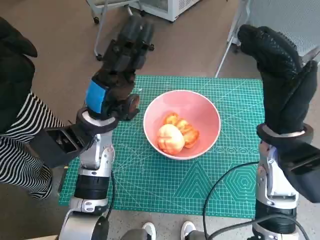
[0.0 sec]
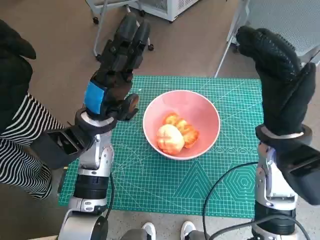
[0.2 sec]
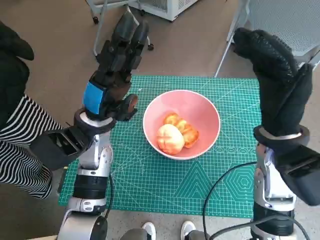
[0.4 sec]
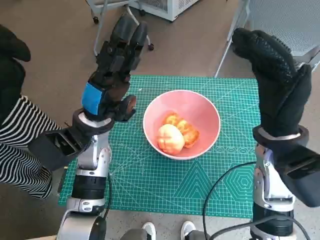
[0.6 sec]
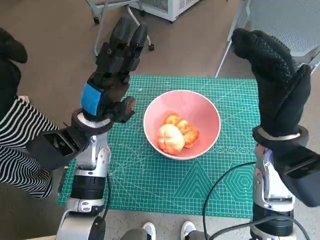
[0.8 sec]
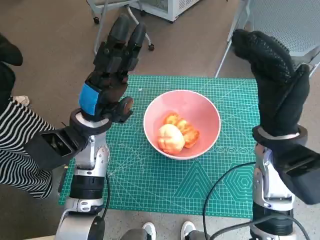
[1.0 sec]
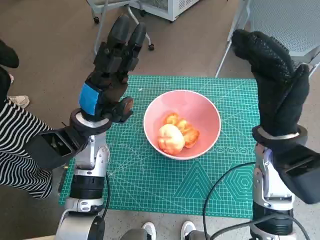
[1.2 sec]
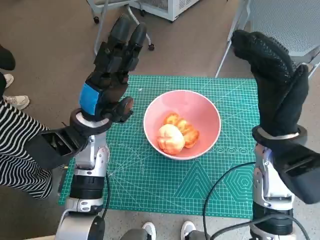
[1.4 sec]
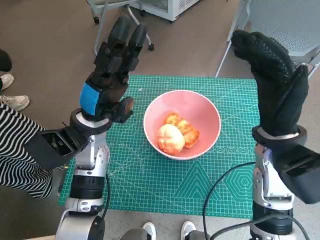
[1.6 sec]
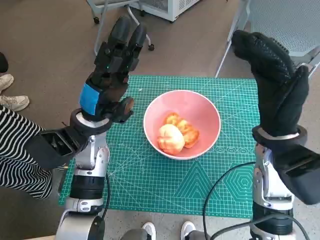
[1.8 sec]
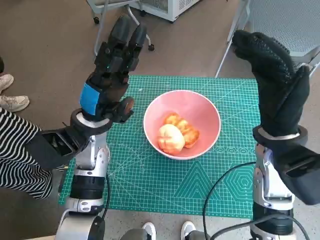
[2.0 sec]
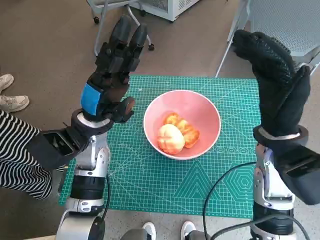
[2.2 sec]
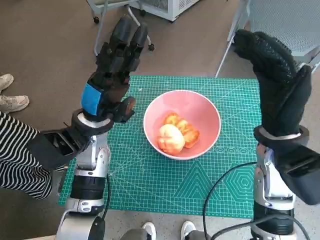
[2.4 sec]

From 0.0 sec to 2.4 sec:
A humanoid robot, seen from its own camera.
Task of the whole recording: Push the bowl into the center of the table and put the bread into the bowl.
From 0.0 sec to 2.4 sec: Both hands stay put.

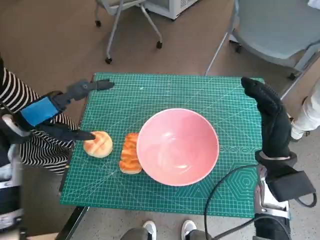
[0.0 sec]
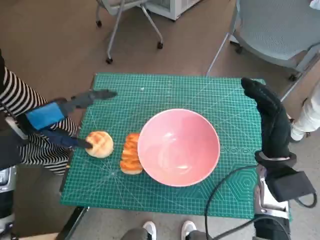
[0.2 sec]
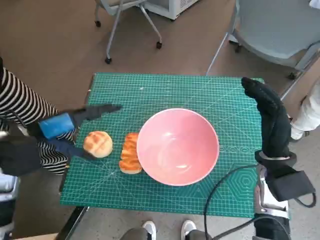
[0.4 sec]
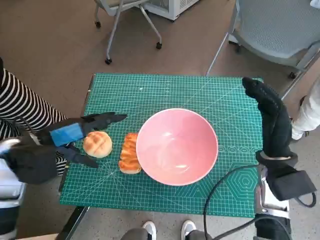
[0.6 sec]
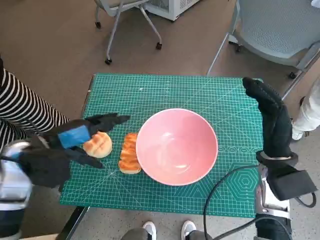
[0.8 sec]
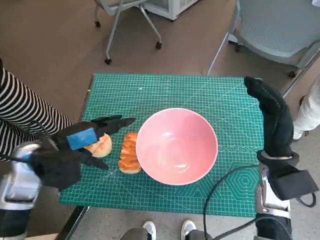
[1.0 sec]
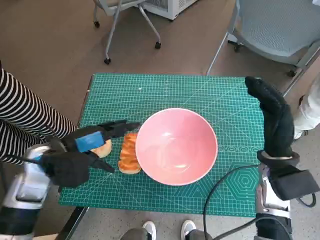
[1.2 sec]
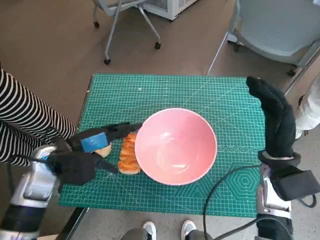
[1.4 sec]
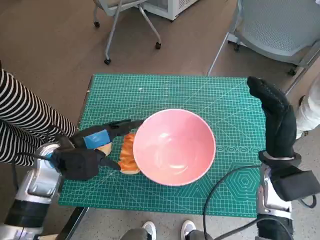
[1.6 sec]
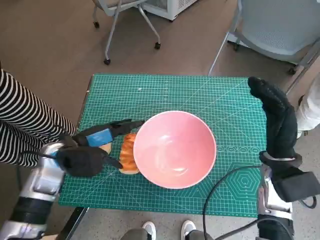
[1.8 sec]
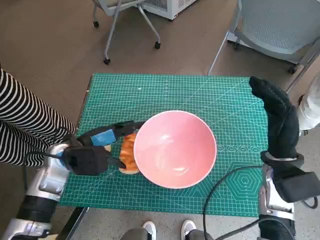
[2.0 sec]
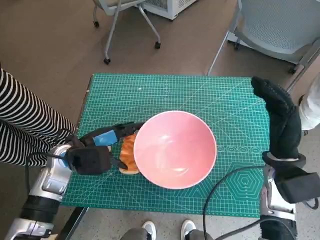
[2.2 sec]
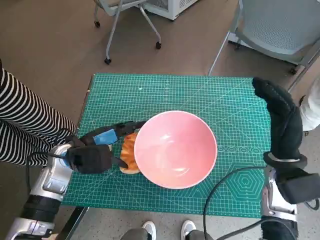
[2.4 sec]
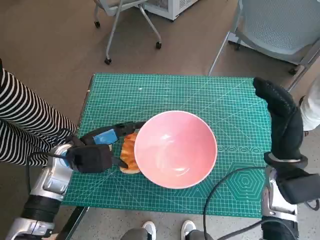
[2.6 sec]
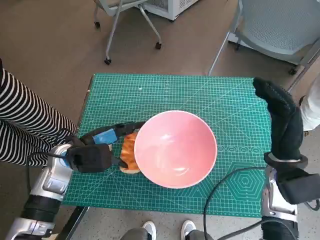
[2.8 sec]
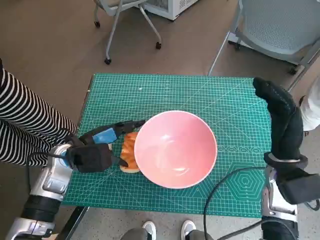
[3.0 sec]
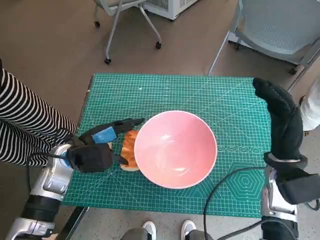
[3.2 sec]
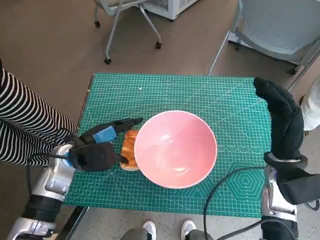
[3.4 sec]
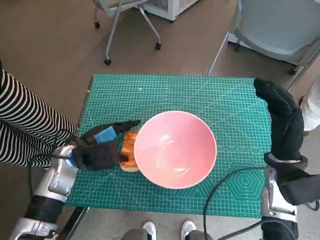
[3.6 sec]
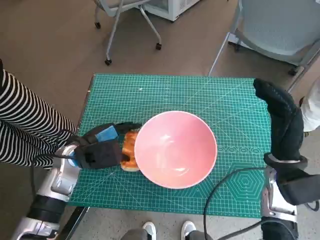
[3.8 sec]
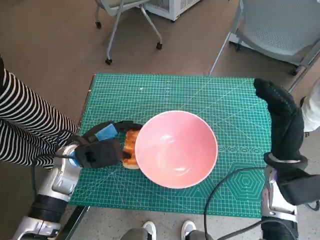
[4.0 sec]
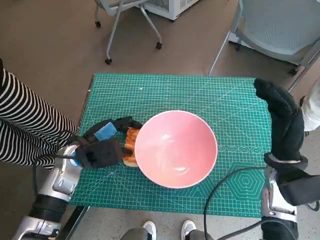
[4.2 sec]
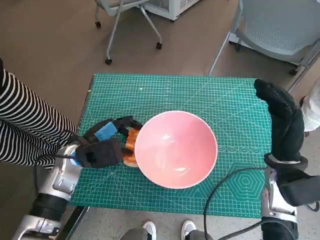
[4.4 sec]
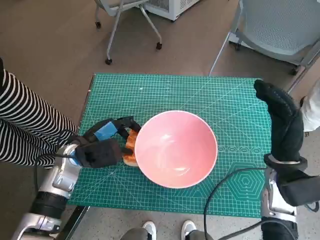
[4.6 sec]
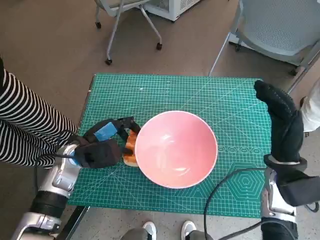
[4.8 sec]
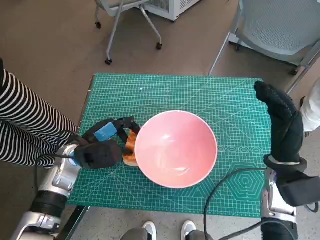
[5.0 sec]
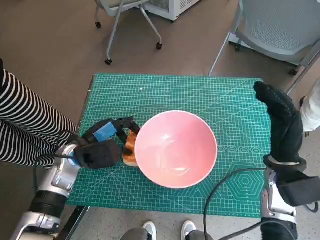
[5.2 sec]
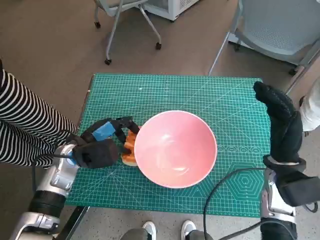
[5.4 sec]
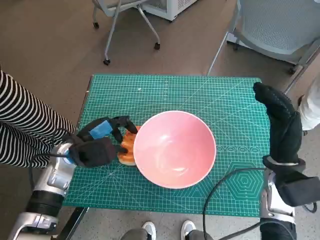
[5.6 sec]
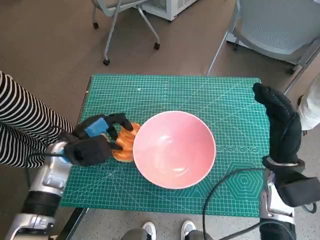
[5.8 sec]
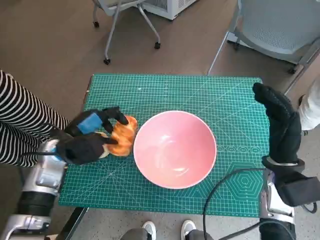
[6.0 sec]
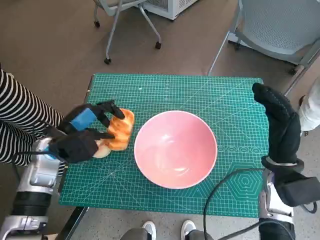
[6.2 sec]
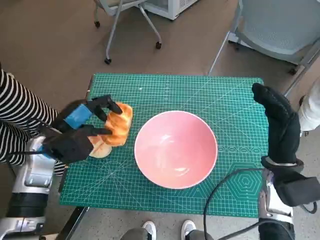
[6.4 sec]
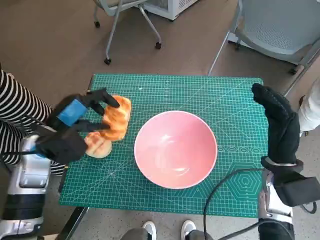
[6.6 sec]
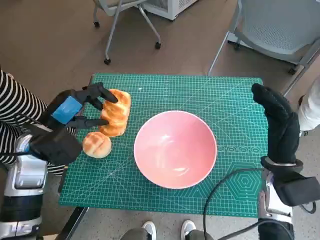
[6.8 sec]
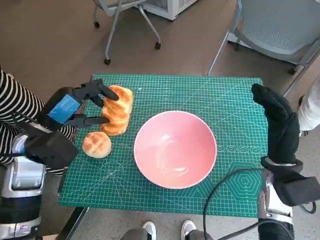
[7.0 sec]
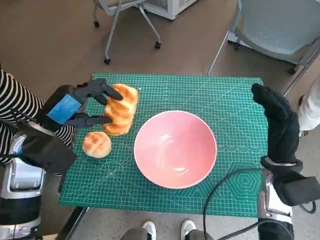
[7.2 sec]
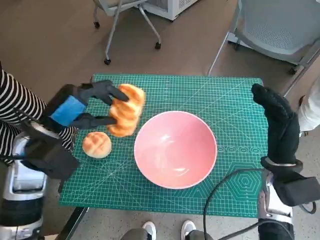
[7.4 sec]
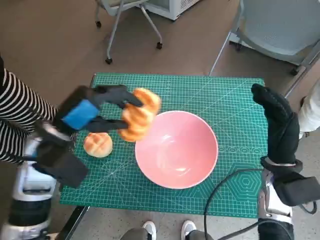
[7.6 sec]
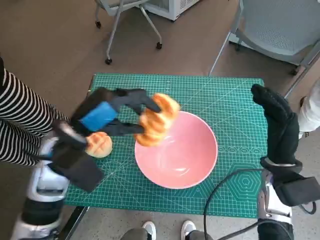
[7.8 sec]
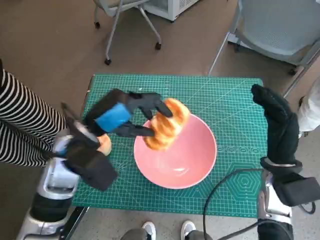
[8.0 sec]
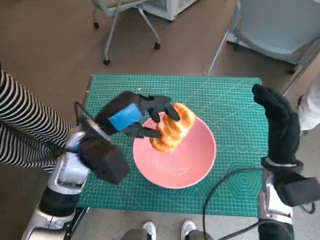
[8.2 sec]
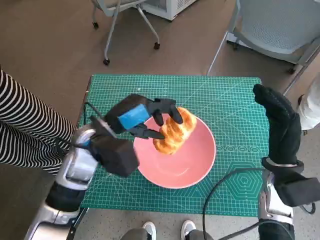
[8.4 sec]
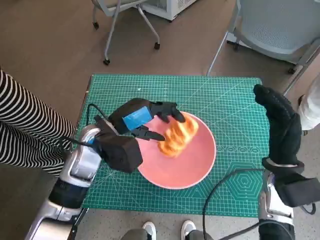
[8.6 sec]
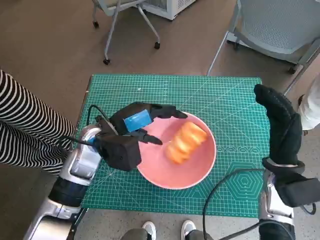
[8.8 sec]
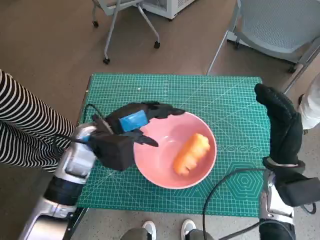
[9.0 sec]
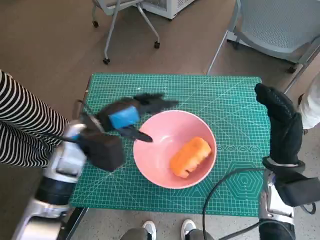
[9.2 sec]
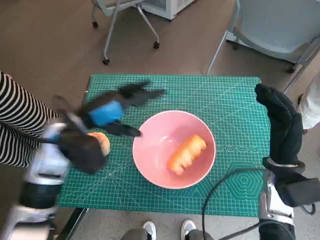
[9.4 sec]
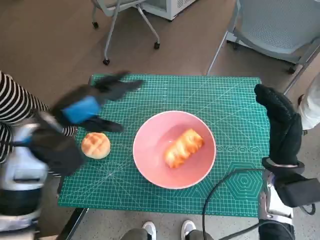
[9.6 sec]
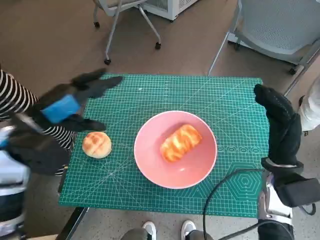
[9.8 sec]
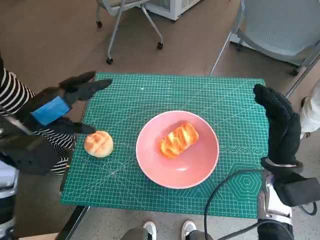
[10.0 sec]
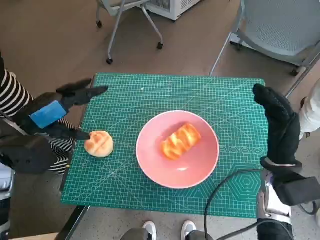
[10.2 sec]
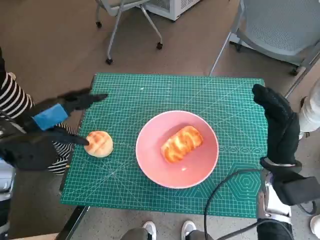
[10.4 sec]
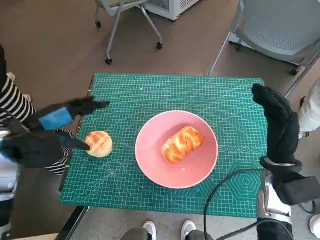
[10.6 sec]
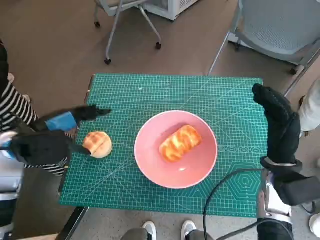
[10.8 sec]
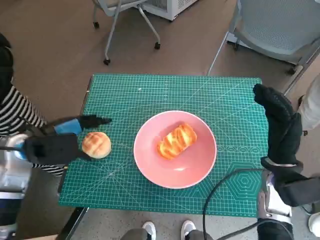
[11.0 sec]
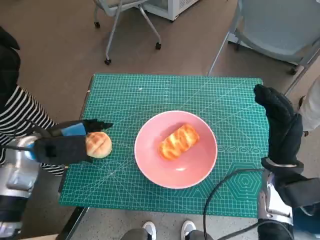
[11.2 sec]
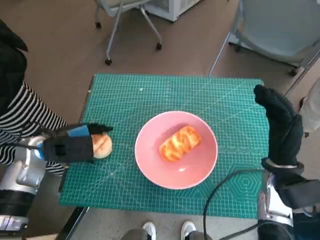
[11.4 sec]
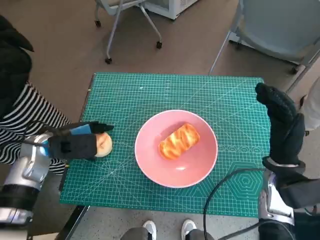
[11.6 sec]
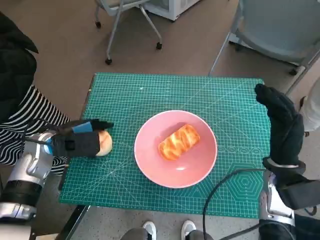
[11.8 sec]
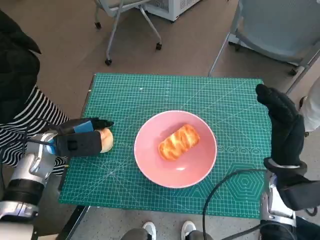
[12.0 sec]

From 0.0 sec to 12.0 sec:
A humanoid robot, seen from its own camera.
Task of the whole recording: Push the bowl into the center of the table and put the bread into the bowl.
Step, from 0.0 sec to 5.2 sec: Grasp the long bread with left hand.
Step, from 5.4 sec to 9.0 sec: Place the long bread in pink bowl with left hand.
From 0.0 sec to 1.6 sec: The left hand heads downward and to the right, covering approximately 10 cm.
From 1.6 sec to 4.4 sec: The hands make only small movements.
From 4.4 sec to 6.0 sec: There are only small adjustments of the hands.
From 6.0 sec to 7.6 sec: The left hand shifts approximately 10 cm upward.
From 7.6 sec to 9.0 sec: The left hand is displaced to the right by some 5 cm.
From 9.0 sec to 10.4 sec: The left hand goes some 15 cm to the left and upward.
From 10.4 sec to 12.0 sec: The left hand goes roughly 10 cm downward.

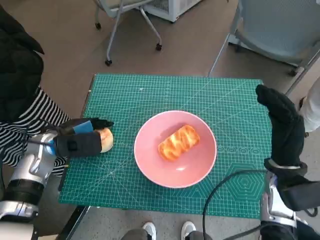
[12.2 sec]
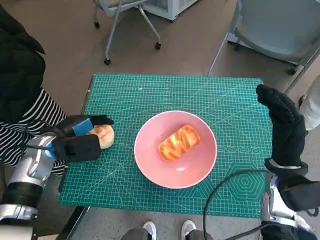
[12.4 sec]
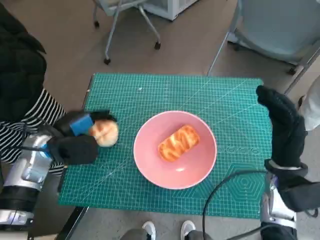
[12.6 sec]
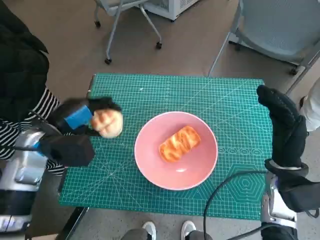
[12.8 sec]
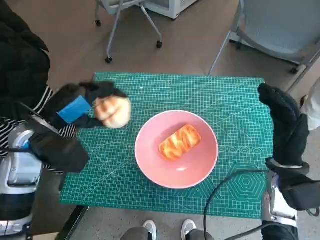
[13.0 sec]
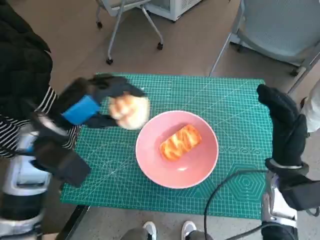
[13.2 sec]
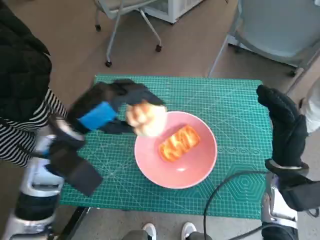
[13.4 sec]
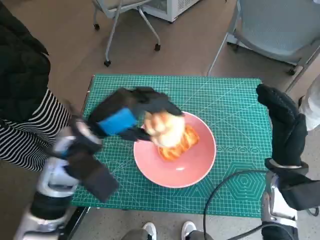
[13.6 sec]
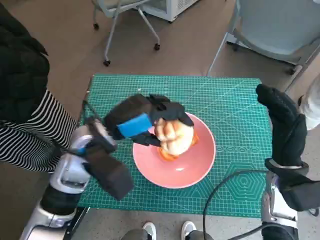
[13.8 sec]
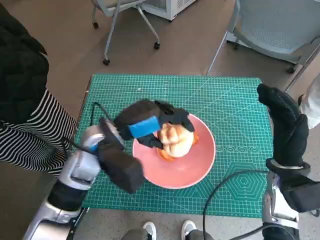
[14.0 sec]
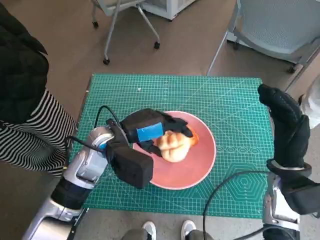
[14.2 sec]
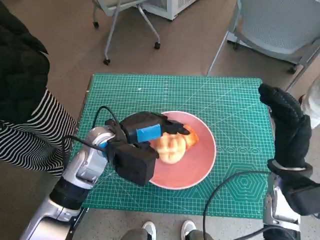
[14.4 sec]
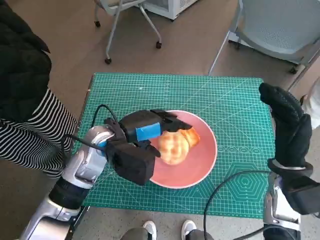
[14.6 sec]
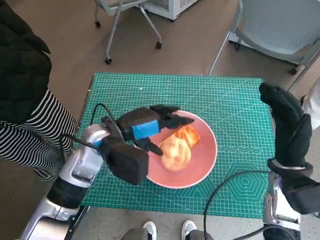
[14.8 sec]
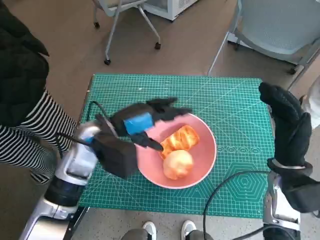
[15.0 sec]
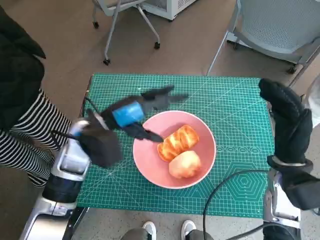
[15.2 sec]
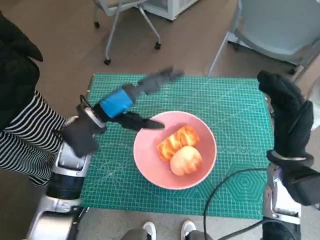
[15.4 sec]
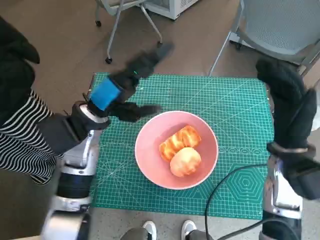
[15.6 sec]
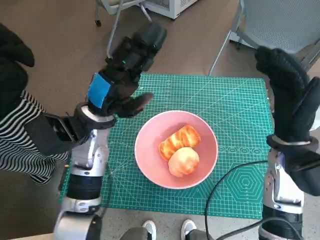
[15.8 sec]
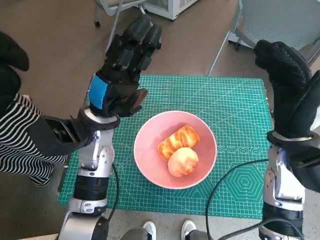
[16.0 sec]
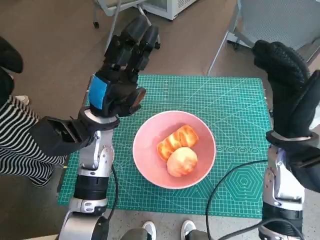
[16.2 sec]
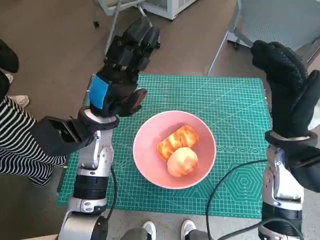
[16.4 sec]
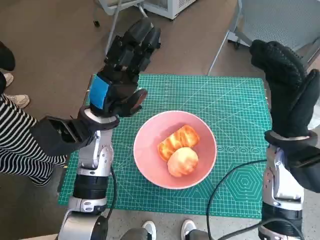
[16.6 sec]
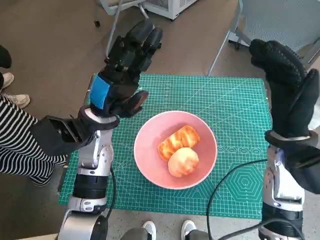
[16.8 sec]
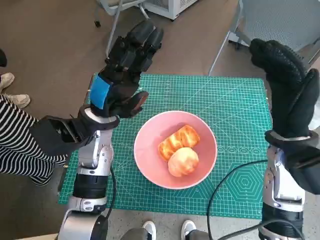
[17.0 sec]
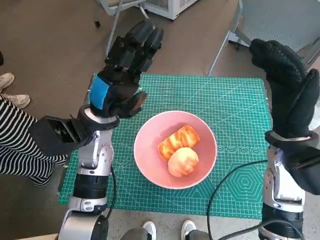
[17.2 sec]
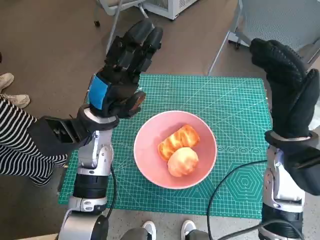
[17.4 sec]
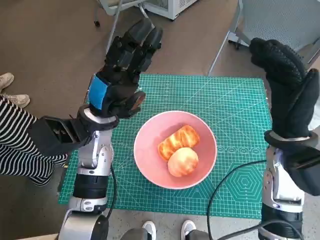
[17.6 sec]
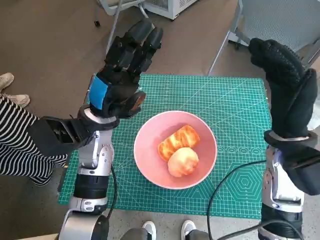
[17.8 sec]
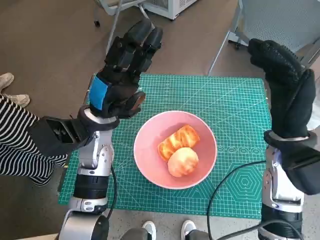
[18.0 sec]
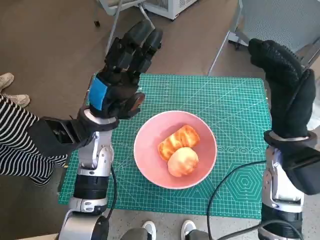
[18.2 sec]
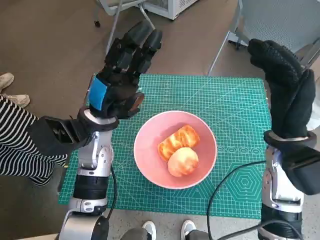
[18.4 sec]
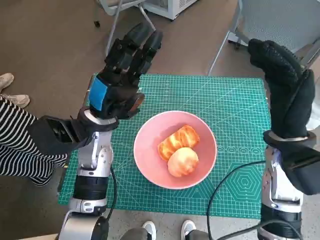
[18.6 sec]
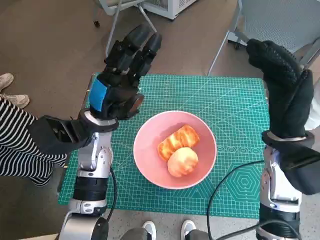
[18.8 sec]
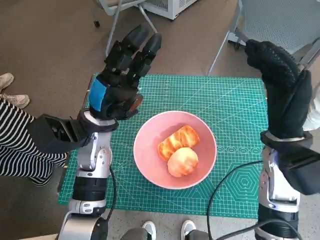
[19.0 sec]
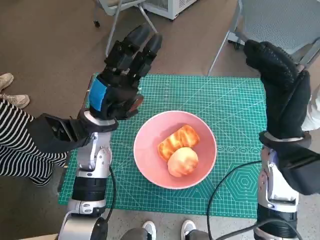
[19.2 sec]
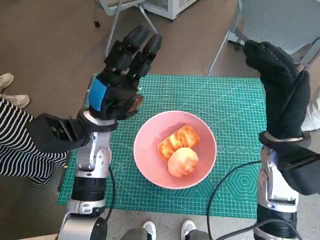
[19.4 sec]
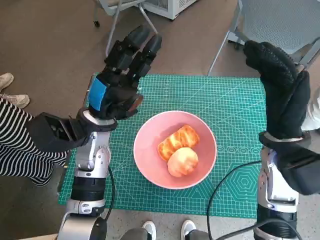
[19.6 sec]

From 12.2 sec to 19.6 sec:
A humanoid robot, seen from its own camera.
Task of the whole recording: Push the bowl into the center of the table and put the bread into the bowl.
Step, from 12.2 sec to 15.0 sec: Place the round bread in pink bowl with left hand.
From 12.2 sec to 13.6 sec: The left hand shifts about 15 cm to the right and upward.
From 15.2 sec to 16.6 sec: The right hand heads upward, covering approximately 5 cm.
From 16.6 sec to 18.2 sec: Neither hand changes place.
From 18.2 sec to 19.6 sec: Both hands stay put.
